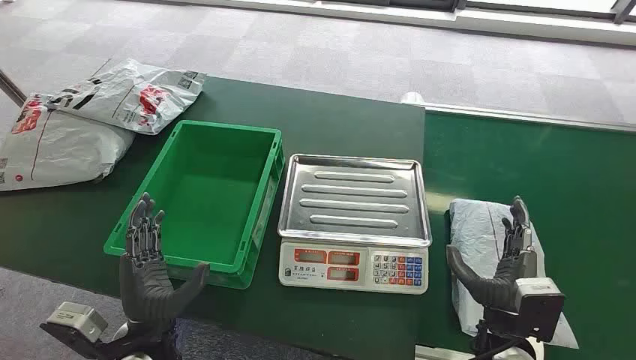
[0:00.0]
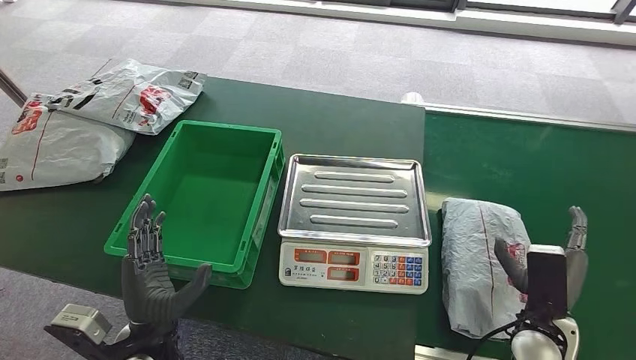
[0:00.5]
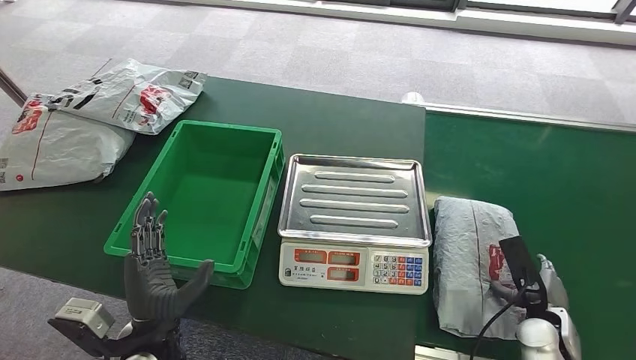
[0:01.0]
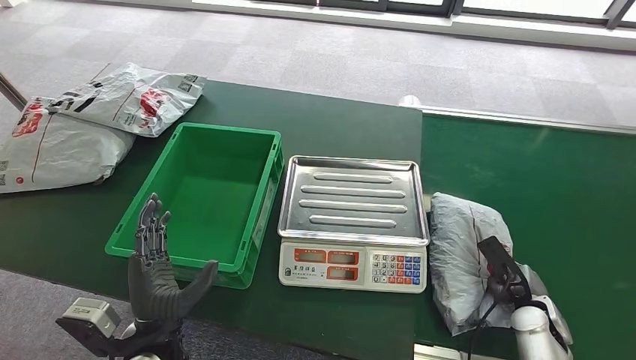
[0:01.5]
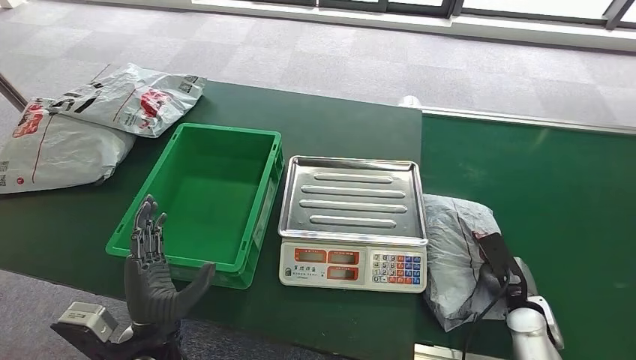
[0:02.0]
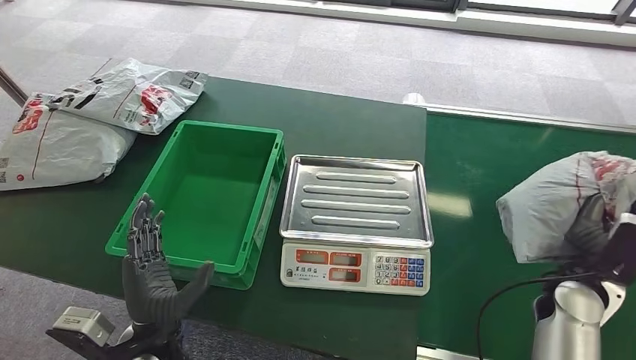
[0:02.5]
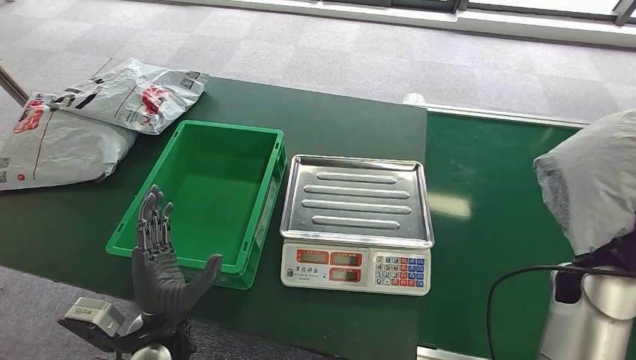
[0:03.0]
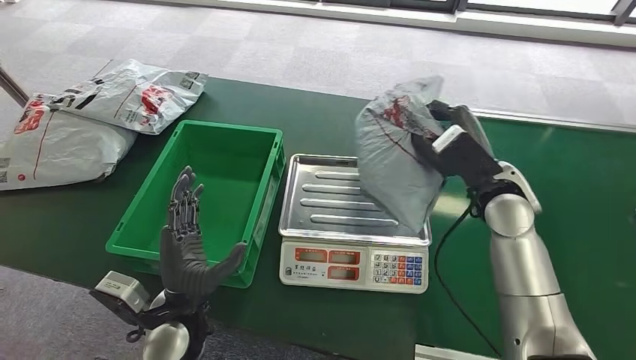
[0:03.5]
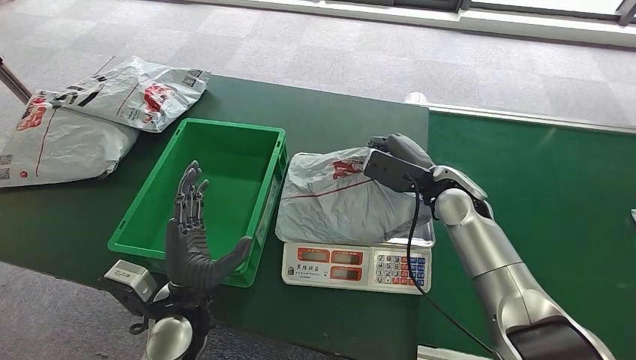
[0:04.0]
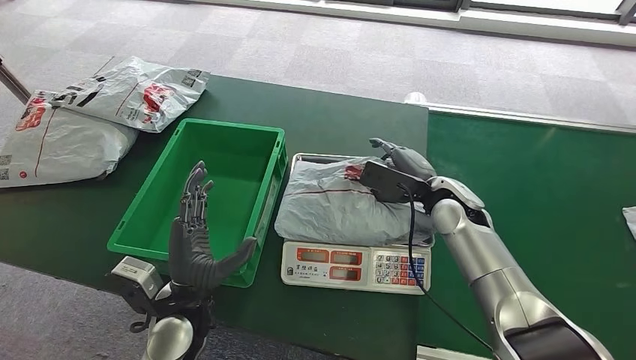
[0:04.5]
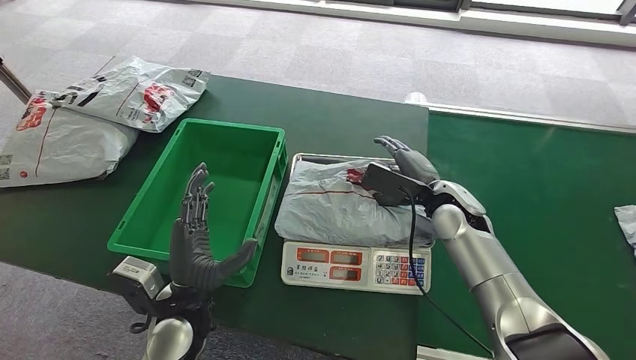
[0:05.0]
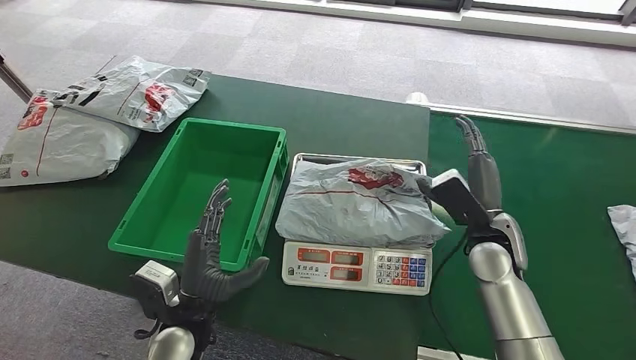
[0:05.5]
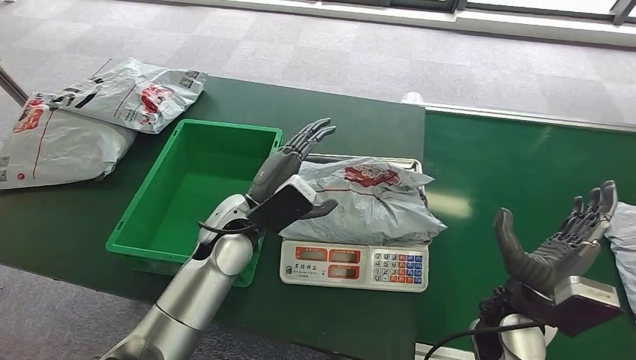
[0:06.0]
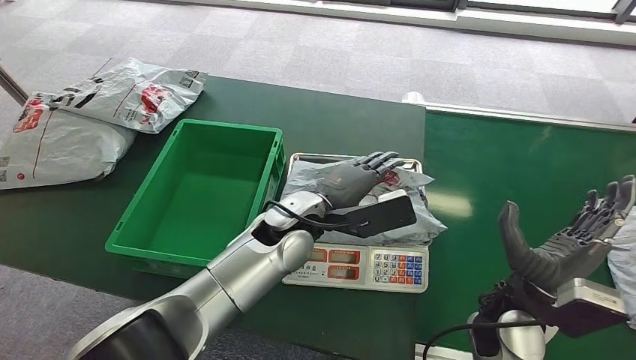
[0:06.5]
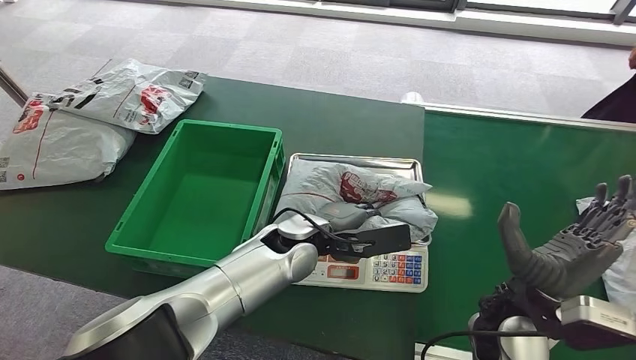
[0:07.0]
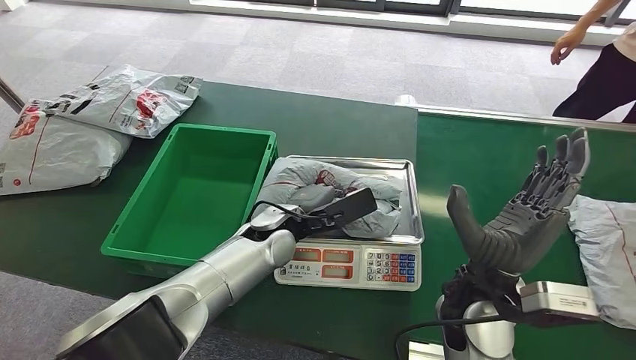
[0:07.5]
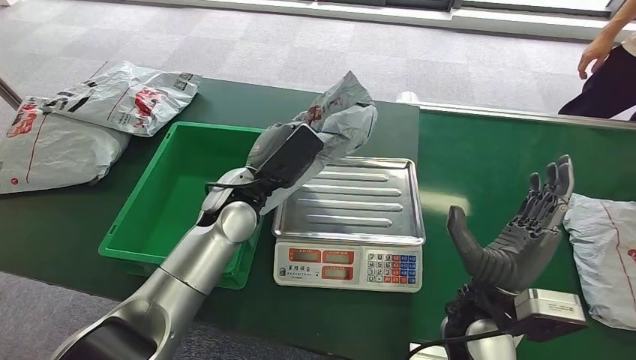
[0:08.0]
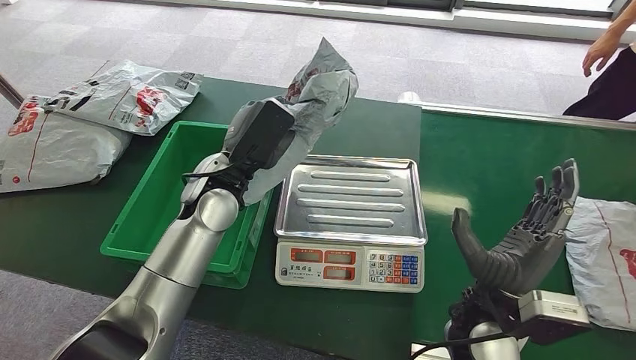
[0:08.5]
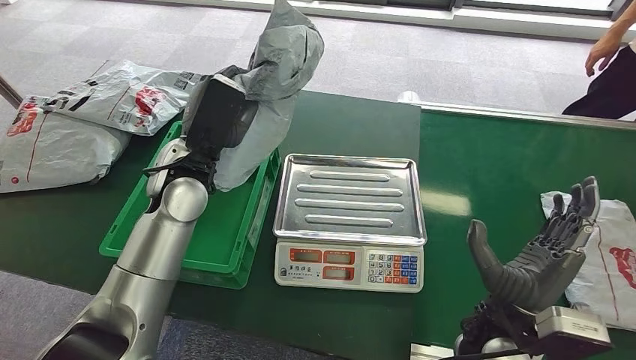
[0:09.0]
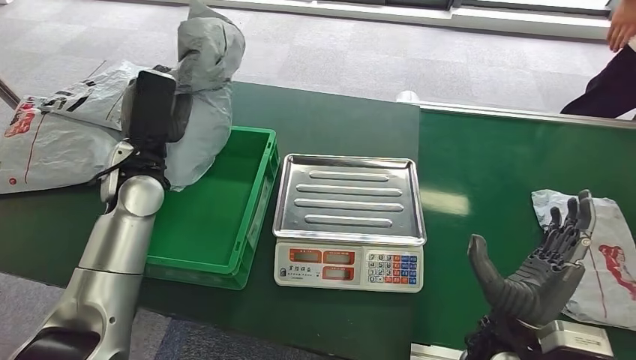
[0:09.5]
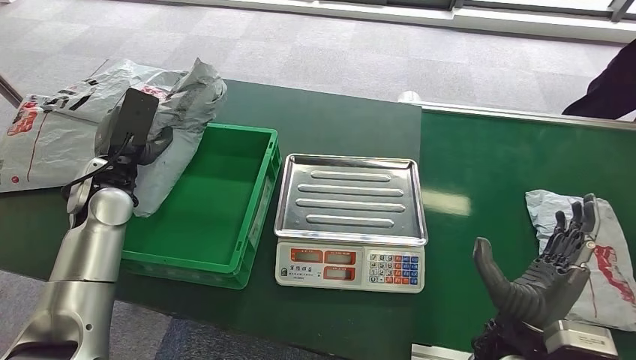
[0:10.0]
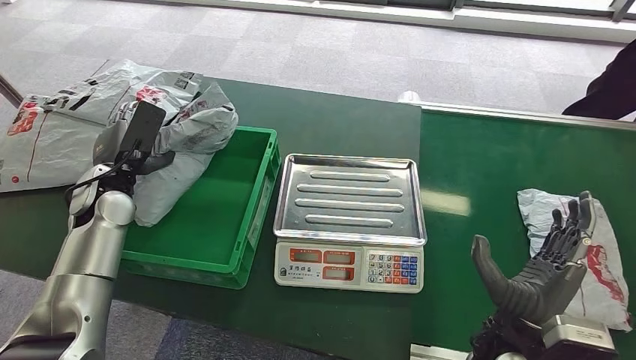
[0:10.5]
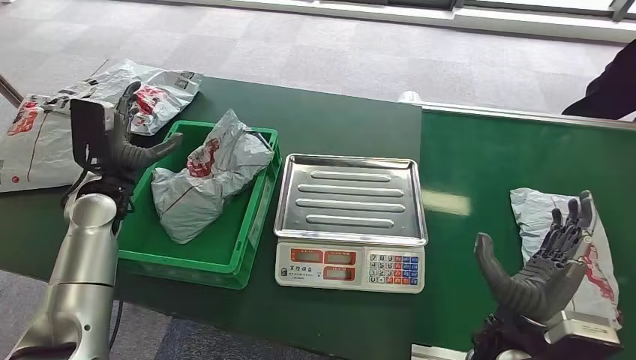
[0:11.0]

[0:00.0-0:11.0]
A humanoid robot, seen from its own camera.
Task of the whole recording: Weigh the package on the weighing device and place it in the left basket.
Step, 0:00.0 to 0:03.0: Pick up the package from the conveyor belt.
Step, 0:04.0 to 0:05.0: Place the package onto the inbound machine.
Step, 0:05.5 to 0:08.0: Pick up the package from the inbound machine.
Step, 0:08.5 to 0:10.5: Place the package into the parcel locker.

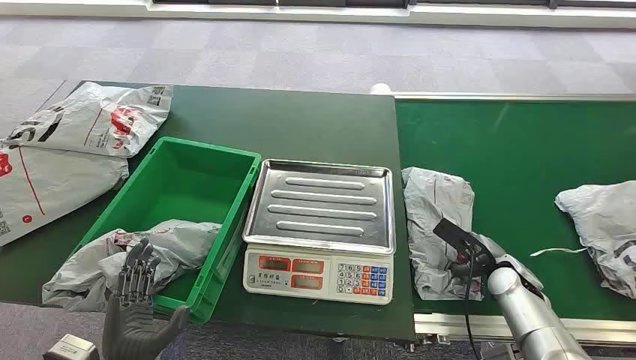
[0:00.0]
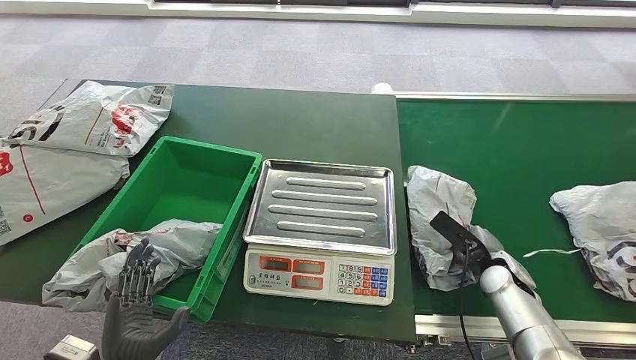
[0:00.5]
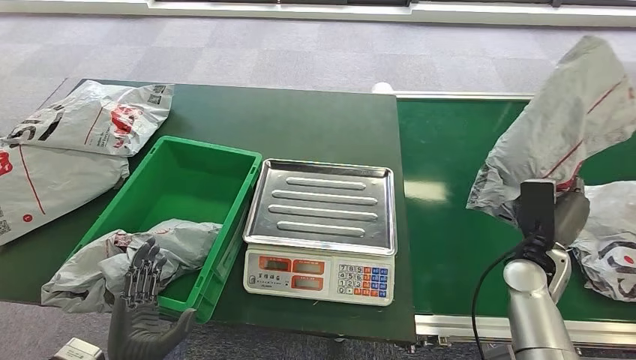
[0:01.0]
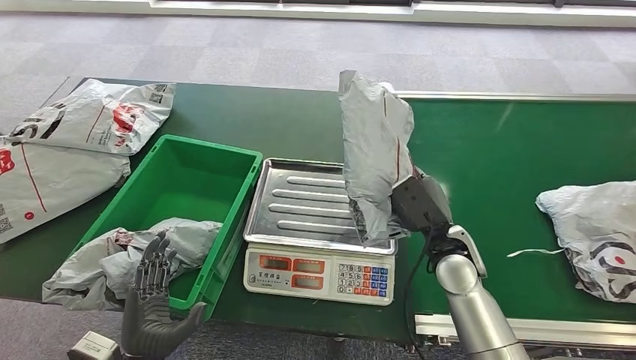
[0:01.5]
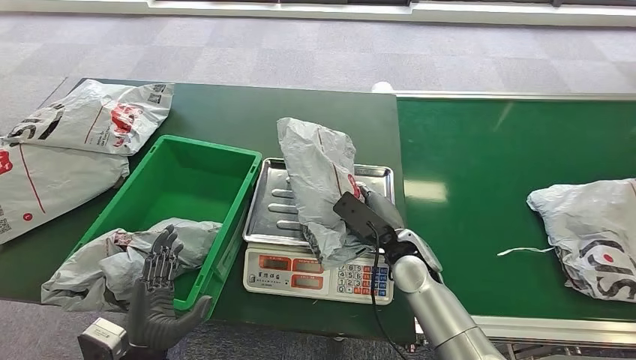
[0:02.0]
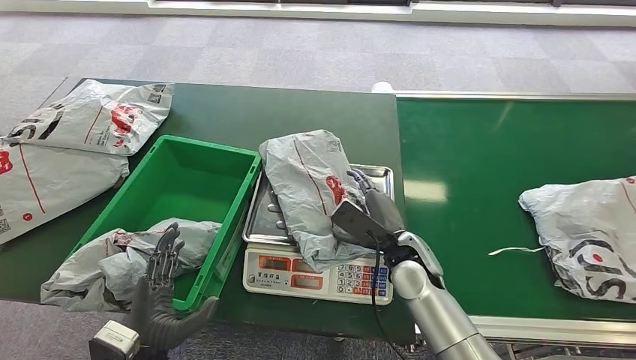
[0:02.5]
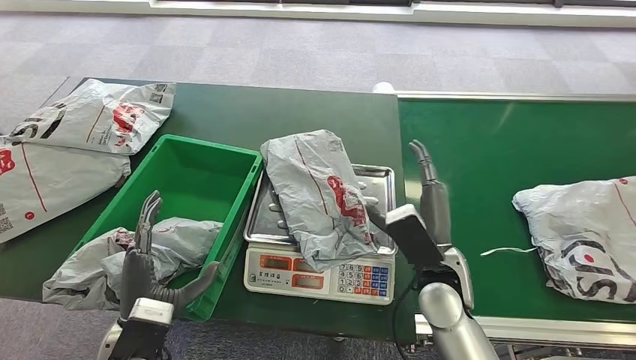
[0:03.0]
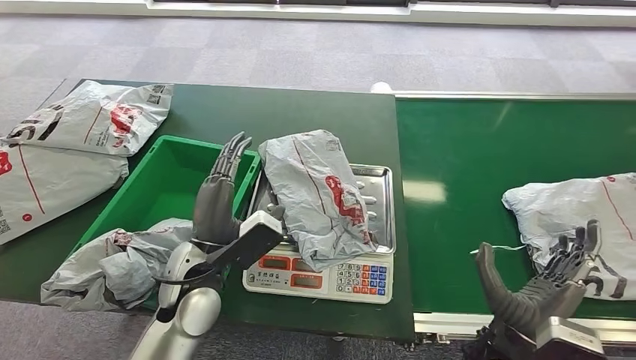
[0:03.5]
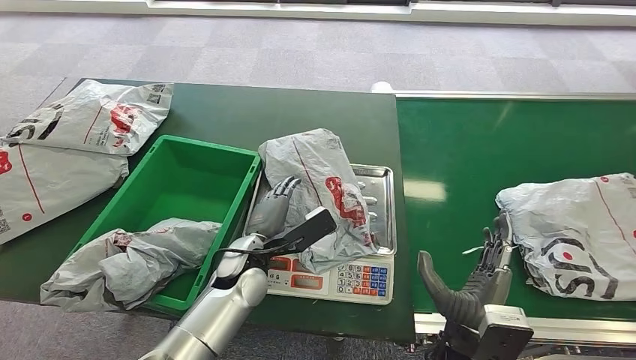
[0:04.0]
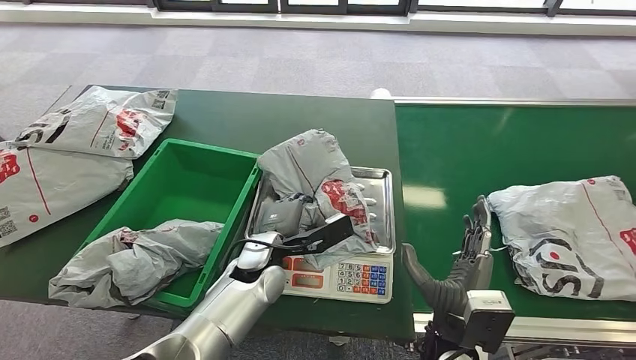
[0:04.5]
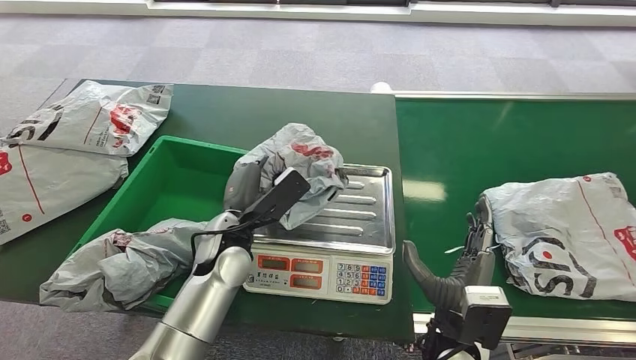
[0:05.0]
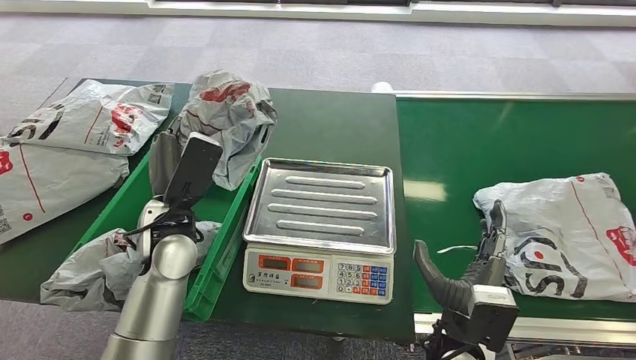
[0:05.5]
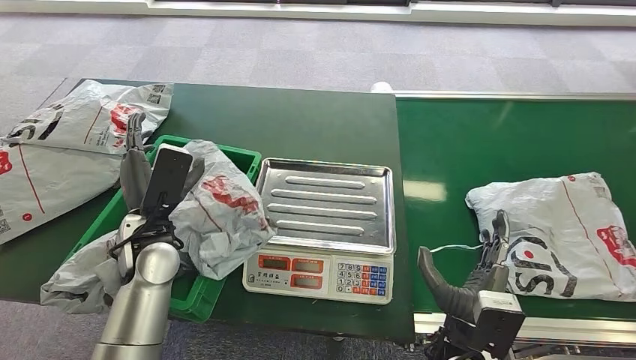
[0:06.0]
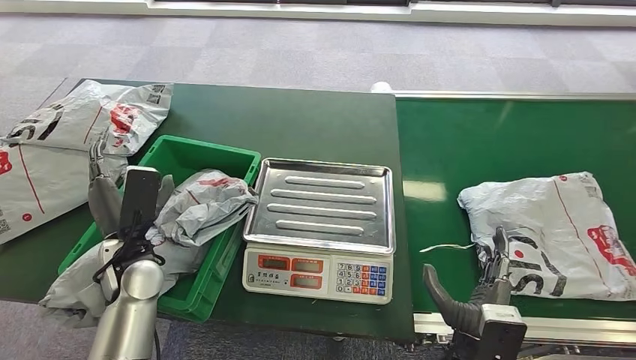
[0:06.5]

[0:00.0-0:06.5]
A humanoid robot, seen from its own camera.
Task of the whole recording: Weigh the package on the weighing device and place it in the left basket.
Step, 0:00.0 to 0:00.5: Pick up the package from the conveyor belt.
Step, 0:01.0 to 0:02.5: Place the package onto the inbound machine.
Step, 0:03.0 to 0:05.0: Pick up the package from the inbound machine.
Step, 0:05.5 to 0:06.5: Place the package into the parcel locker.
